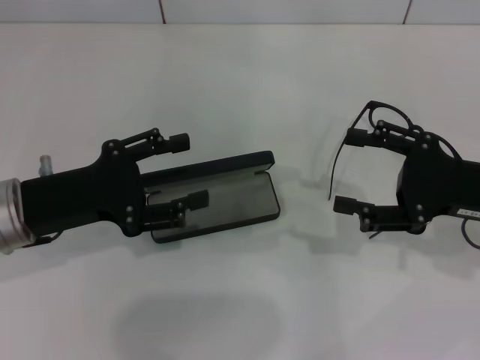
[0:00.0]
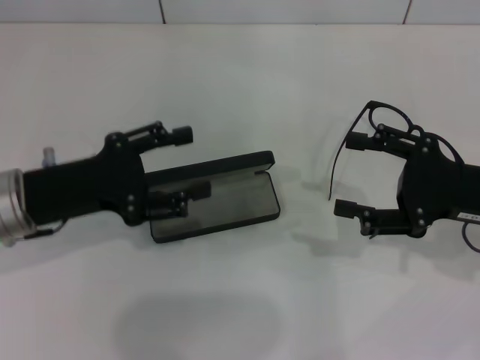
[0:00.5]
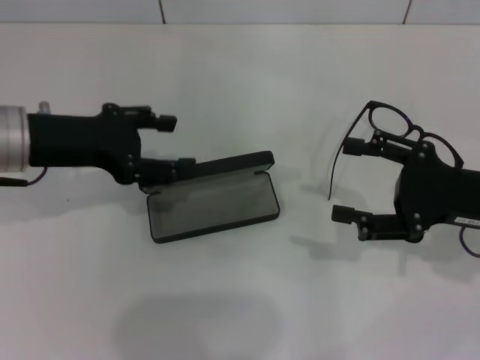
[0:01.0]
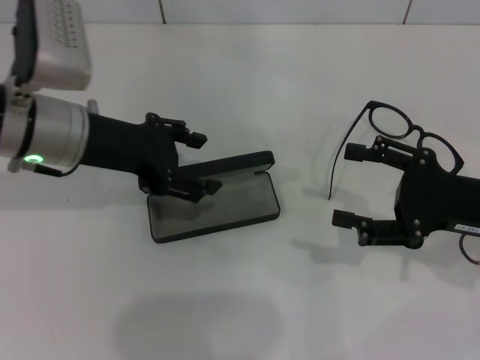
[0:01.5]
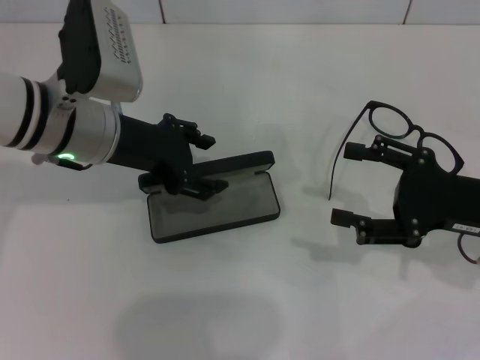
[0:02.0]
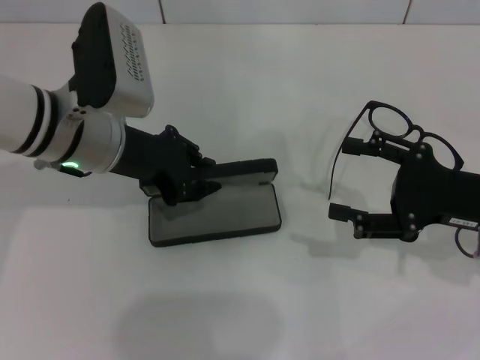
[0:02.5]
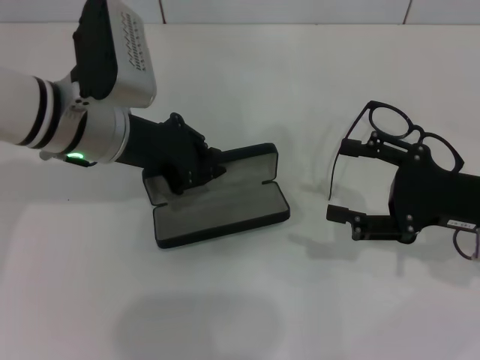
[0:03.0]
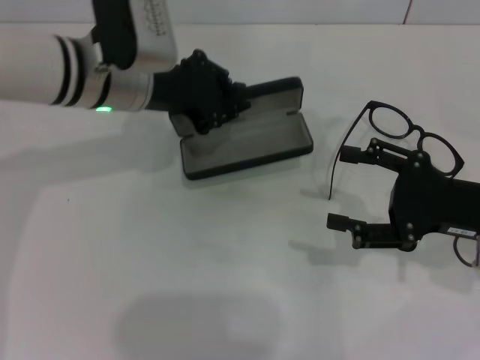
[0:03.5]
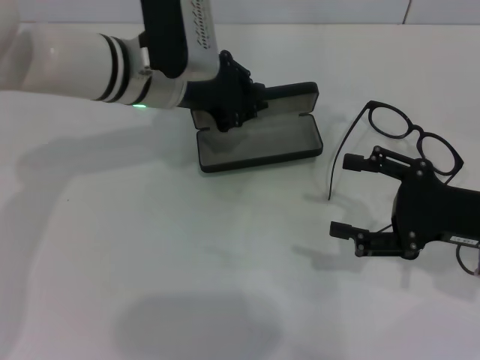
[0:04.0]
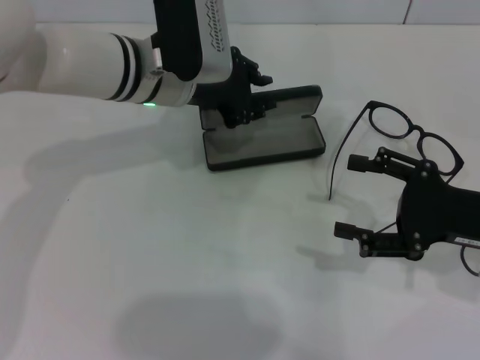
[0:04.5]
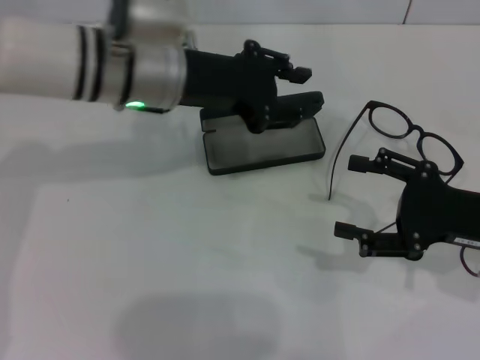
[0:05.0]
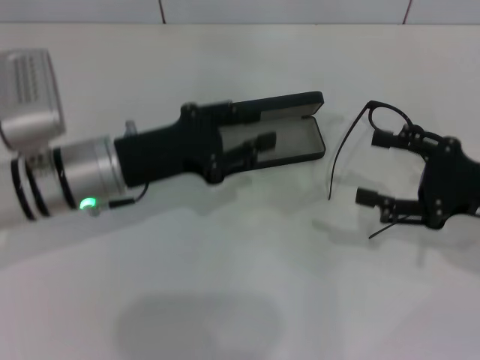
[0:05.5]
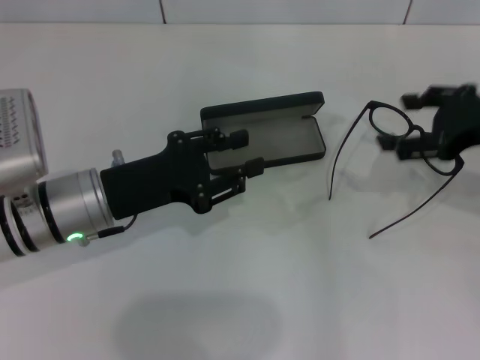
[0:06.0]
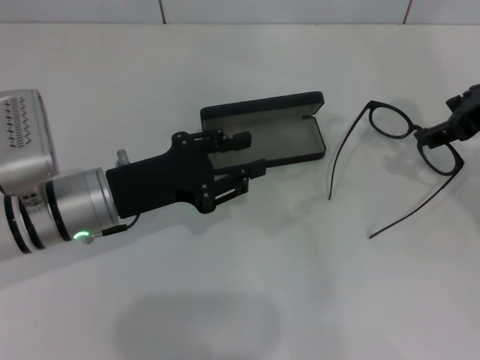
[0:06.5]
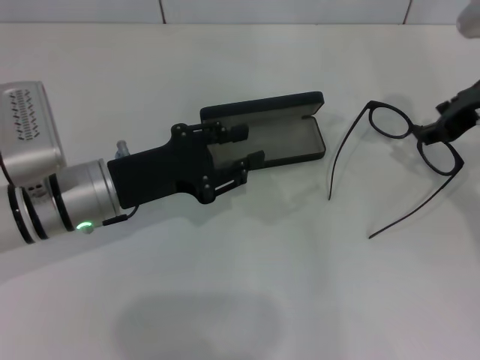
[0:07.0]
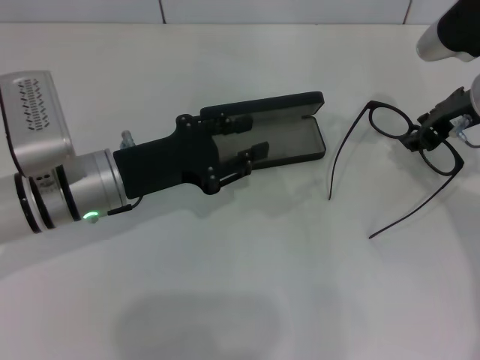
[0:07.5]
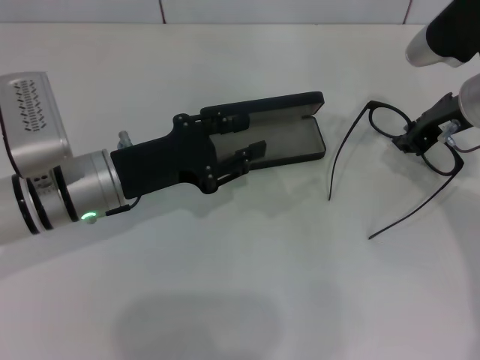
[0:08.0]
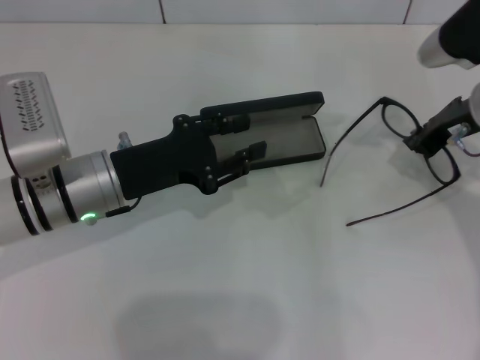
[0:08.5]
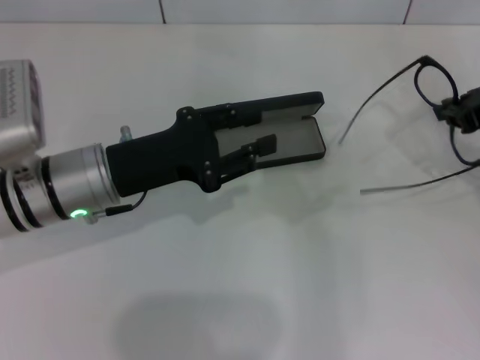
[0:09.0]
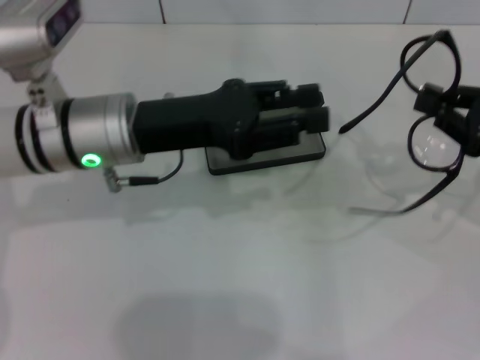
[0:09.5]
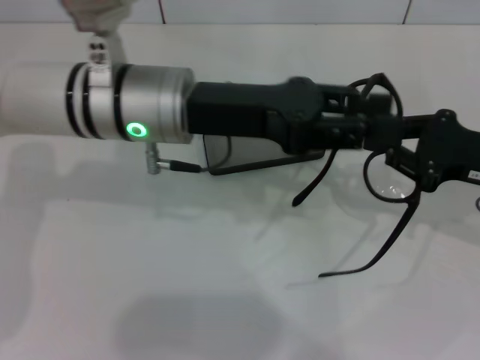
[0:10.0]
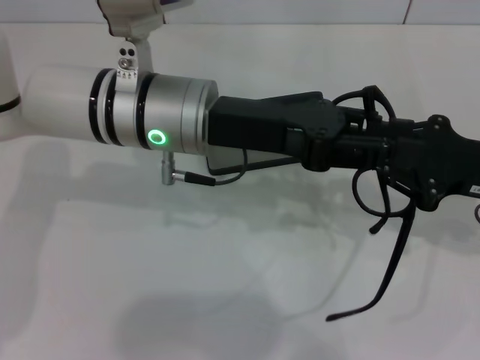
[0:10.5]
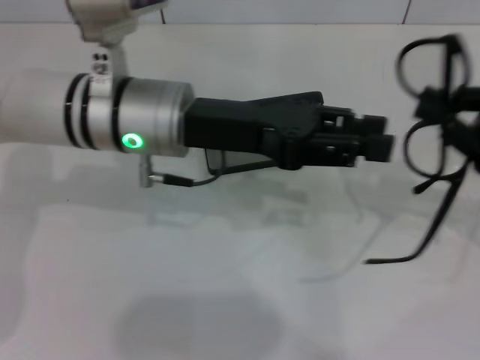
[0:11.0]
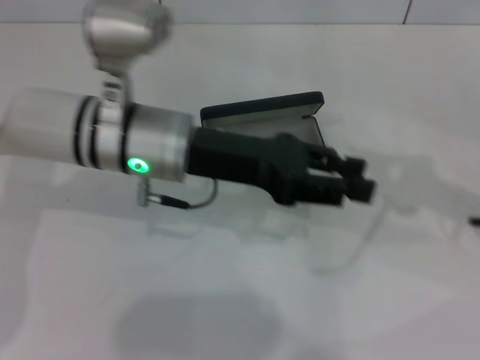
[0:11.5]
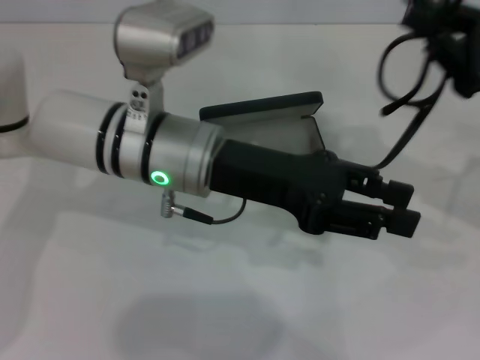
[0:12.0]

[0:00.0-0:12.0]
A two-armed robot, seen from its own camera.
Step, 0:00.0 to 0:02.5: Grab the glasses case with your left hand.
Step, 0:03.0 to 0:04.5: Place the glasses case in the center of the table with your left hand.
Step, 0:05.0 to 0:08.0: Grab the eyeglass frame with your right hand.
0:00.0 to 0:02.0: The left gripper shifts some 10 cm forward and to the right.
0:02.0 to 0:04.0: The left gripper shifts approximately 10 cm forward and to the right, and closes its fingers.
0:04.0 to 0:06.0: The right gripper travels upward and forward by about 10 cm. The left gripper goes roughly 15 cm backward, to the left and downward.
0:06.0 to 0:08.0: The right gripper heads forward and to the left, covering roughly 10 cm, and closes up.
0:08.0 to 0:10.0: The left gripper goes about 10 cm upward and to the right. The right gripper goes some 10 cm backward and to the right, and closes its fingers.

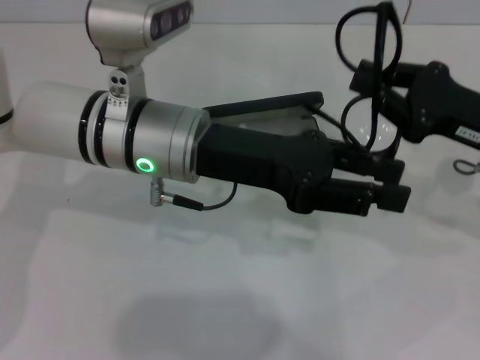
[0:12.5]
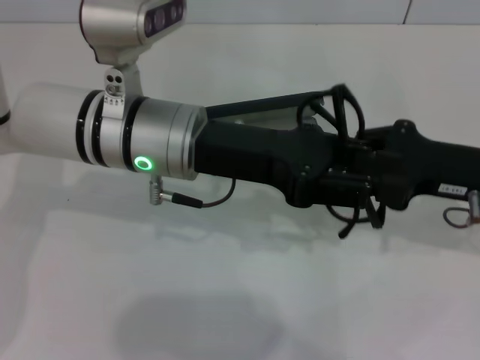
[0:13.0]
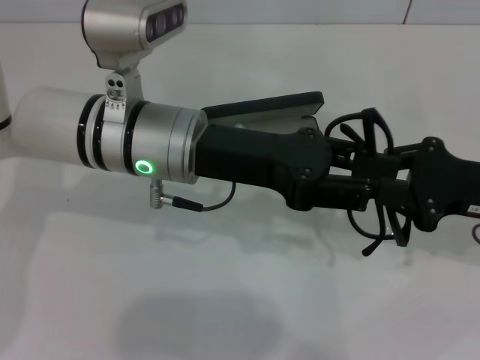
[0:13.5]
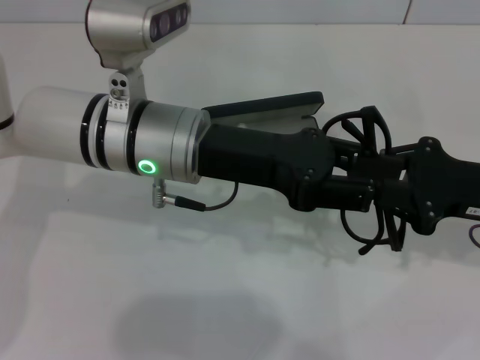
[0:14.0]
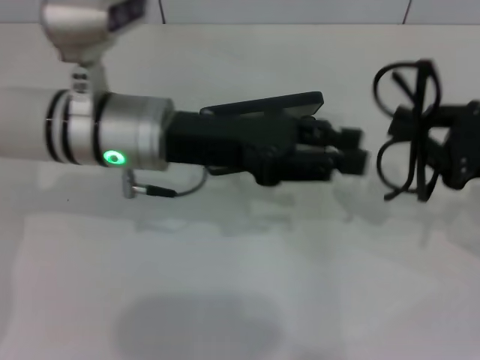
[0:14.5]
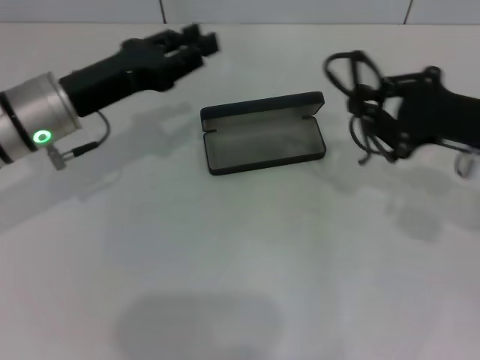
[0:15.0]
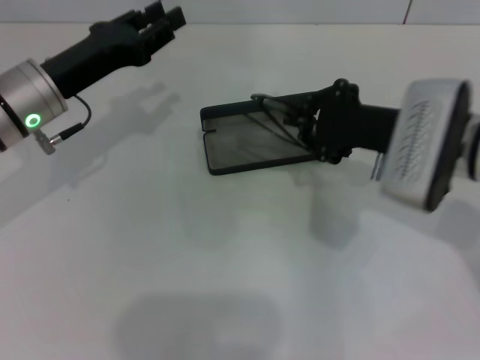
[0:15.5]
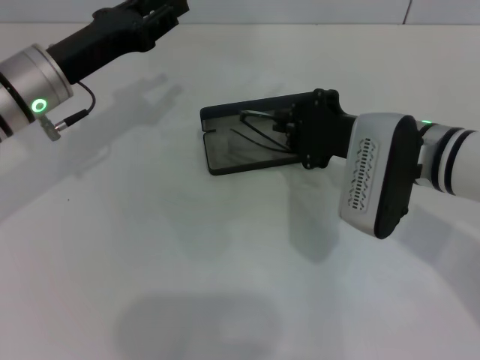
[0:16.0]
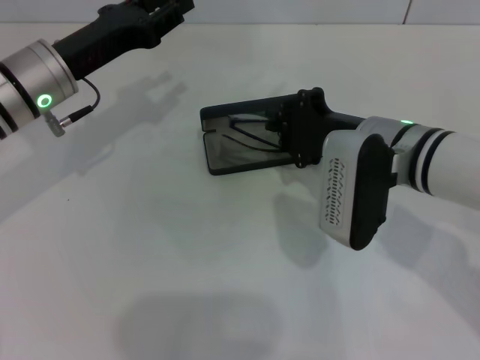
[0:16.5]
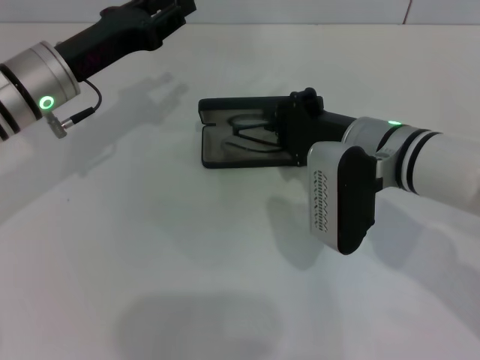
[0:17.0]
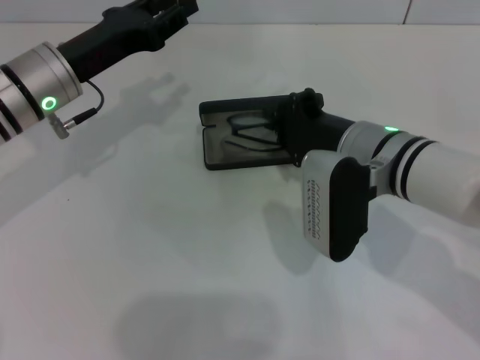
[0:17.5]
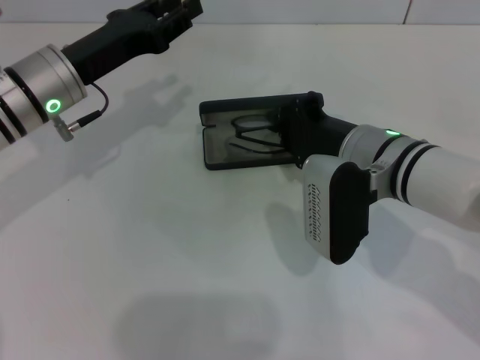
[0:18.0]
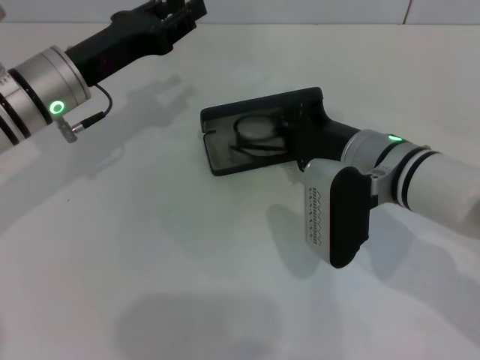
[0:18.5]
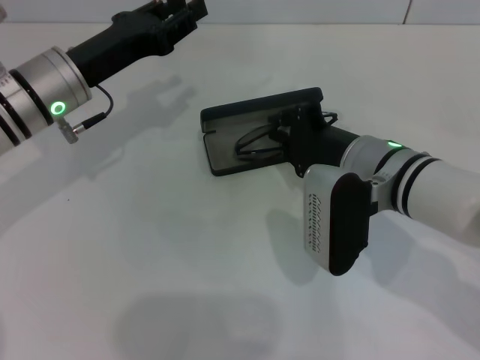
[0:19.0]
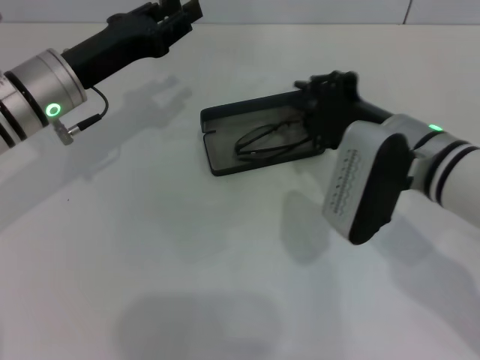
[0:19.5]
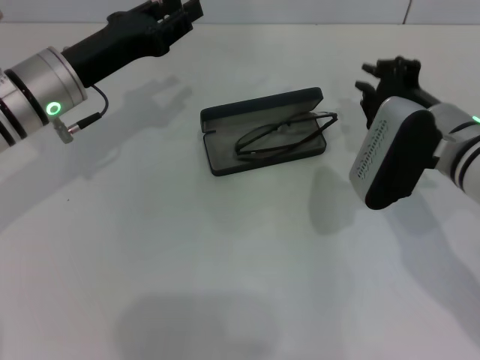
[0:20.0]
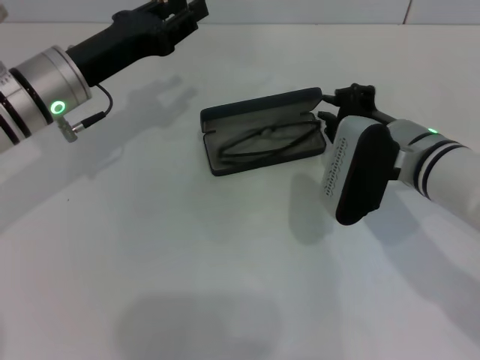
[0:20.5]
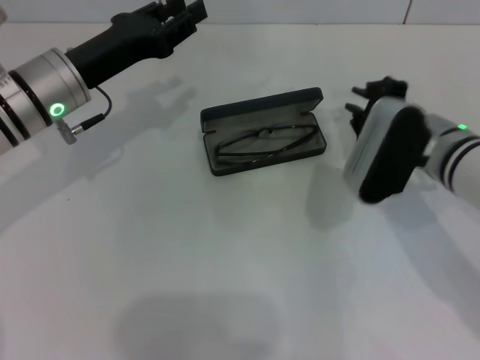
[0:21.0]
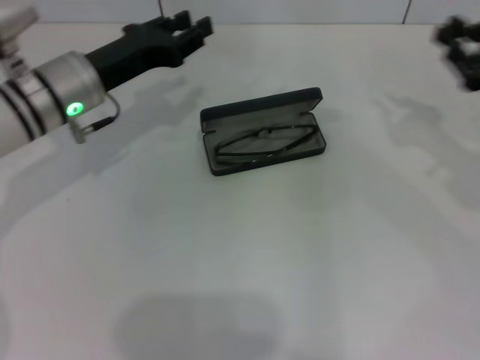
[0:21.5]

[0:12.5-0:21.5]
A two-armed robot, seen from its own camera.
Step, 0:14.5 to 0:20.5: Put the glasses into the case with your right hand.
0:14.5 to 0:17.0: The right gripper shifts approximately 20 cm to the left. The left gripper is displaced to the left by approximately 10 cm.
0:17.0 to 0:19.5: The grippers move only a little.
0:19.5 to 0:21.5: The right gripper travels to the right by some 15 cm.

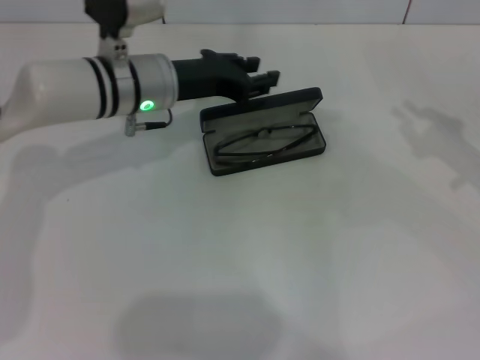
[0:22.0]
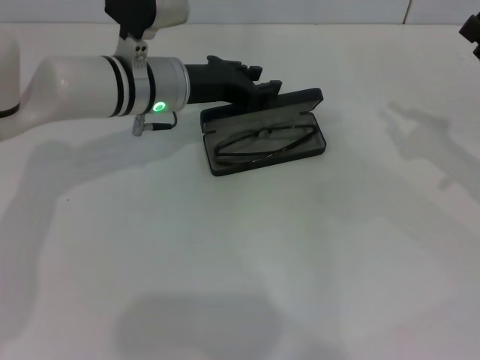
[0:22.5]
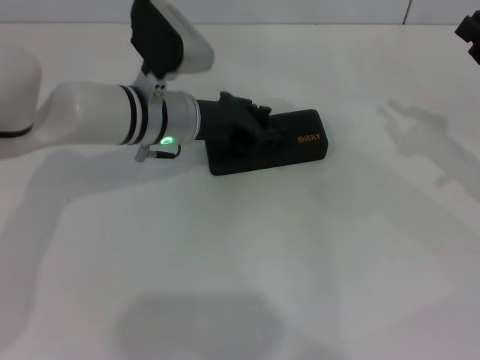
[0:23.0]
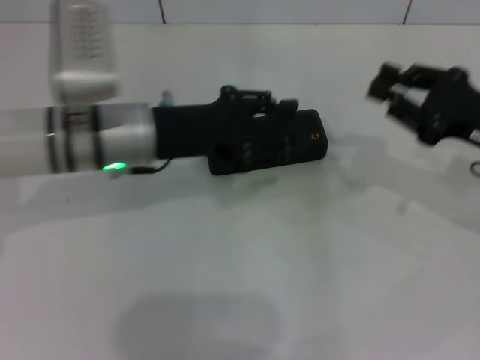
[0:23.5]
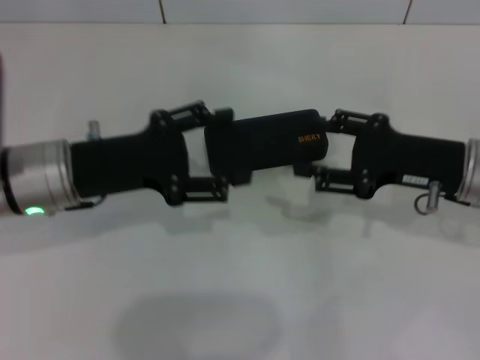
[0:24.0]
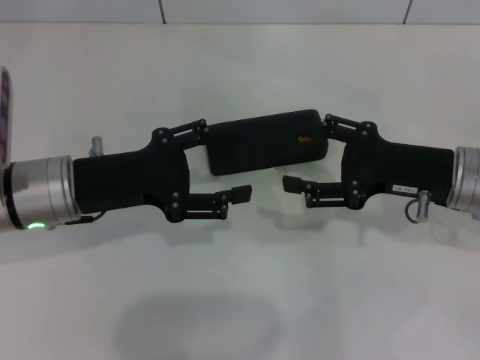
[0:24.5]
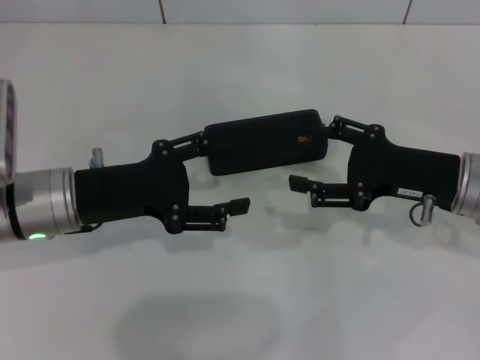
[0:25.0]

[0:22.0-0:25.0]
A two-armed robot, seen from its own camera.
Step, 0:22.0 to 0:23.5: Close the glasses case with your left hand.
0:22.0 to 0:23.5: The right gripper goes about 5 cm to the left. The left gripper heads backward, covering roughly 5 cm.
0:23.5 to 0:25.0: The right gripper goes about 5 cm to the left, and opens; the left gripper moves to the left and backward, about 10 cm, and opens up.

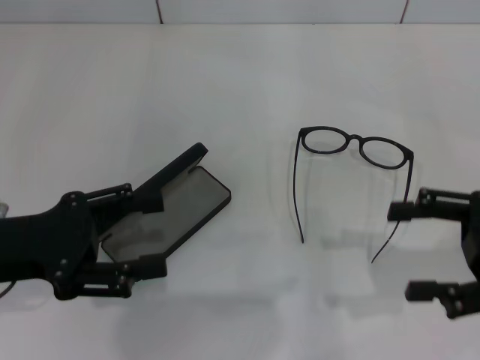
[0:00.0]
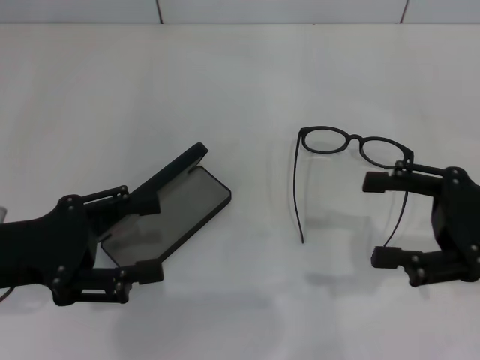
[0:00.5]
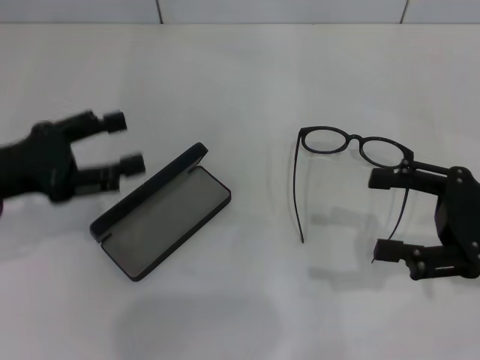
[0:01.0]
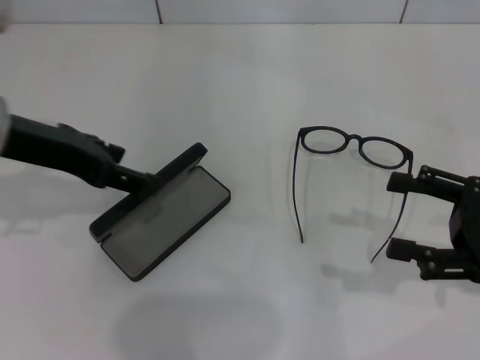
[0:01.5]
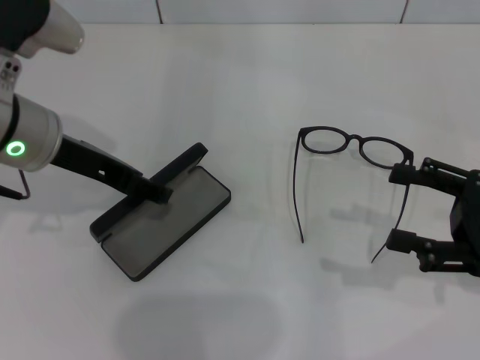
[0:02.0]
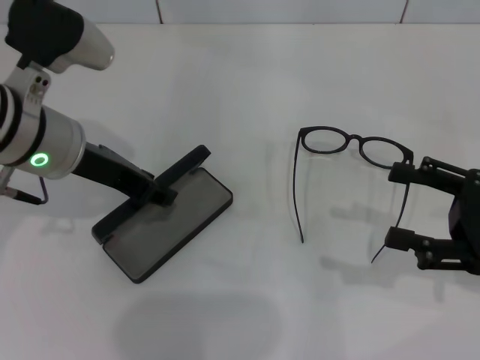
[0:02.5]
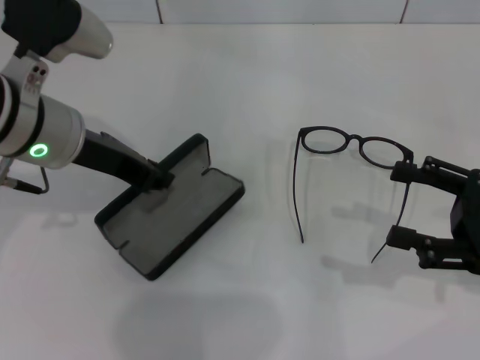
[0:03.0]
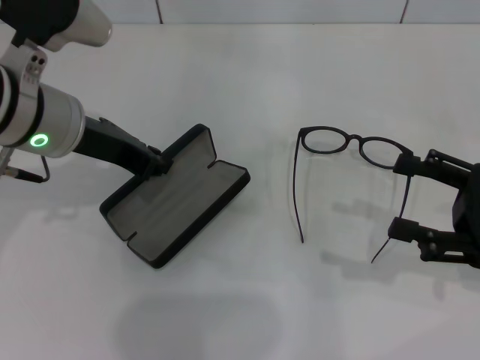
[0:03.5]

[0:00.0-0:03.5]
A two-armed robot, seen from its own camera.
Step, 0:00.0 to 0:03.0: Grab the glasses case with your left hand.
0:00.0 to 0:02.0: The left gripper goes approximately 15 cm forward, to the right and upward.
0:02.0 to 0:03.5: The left gripper closes its fingers.
